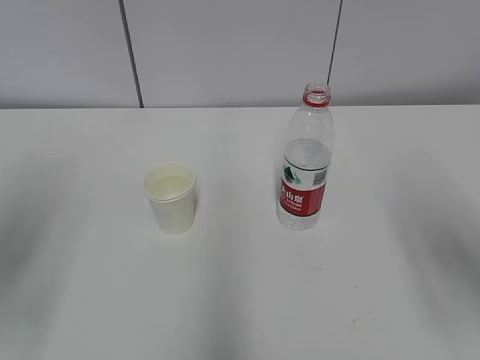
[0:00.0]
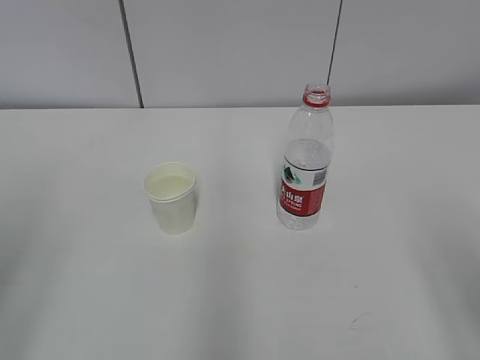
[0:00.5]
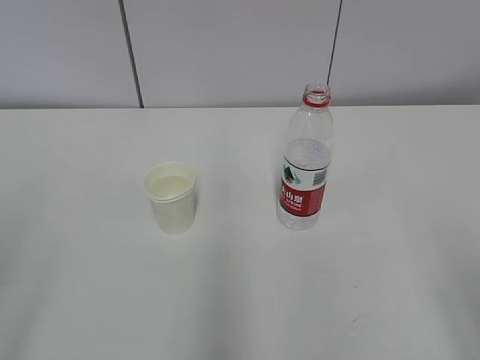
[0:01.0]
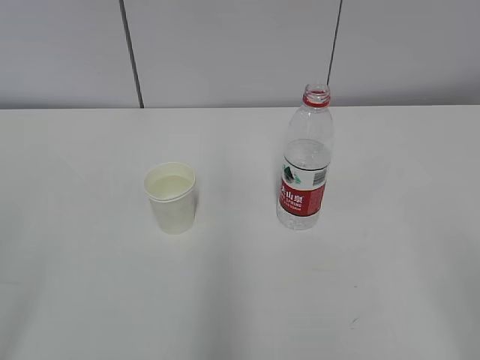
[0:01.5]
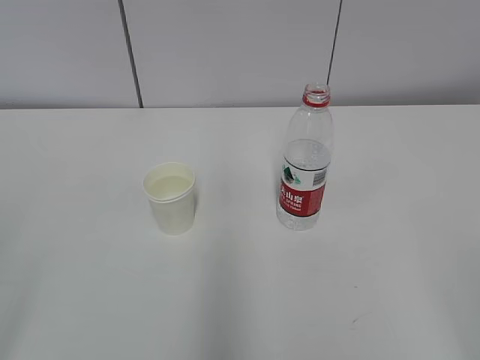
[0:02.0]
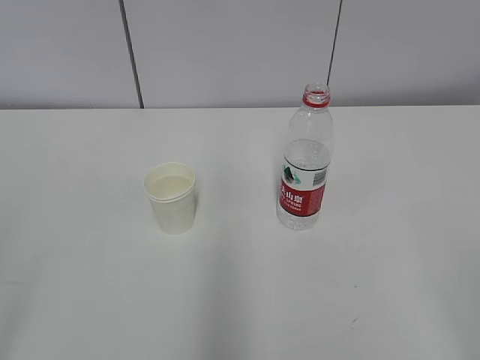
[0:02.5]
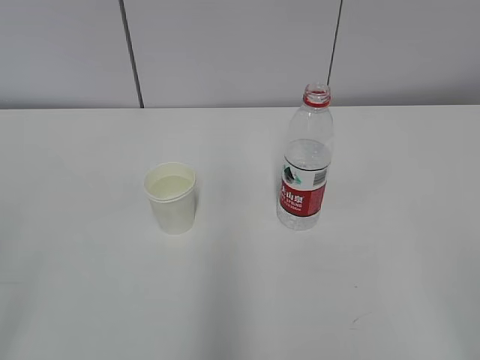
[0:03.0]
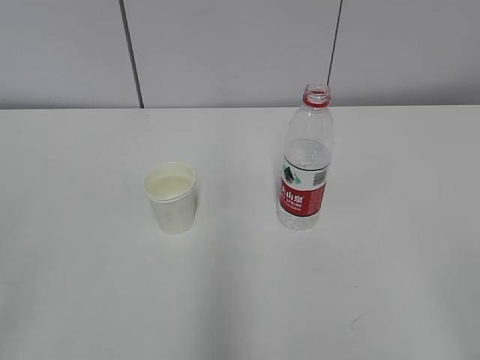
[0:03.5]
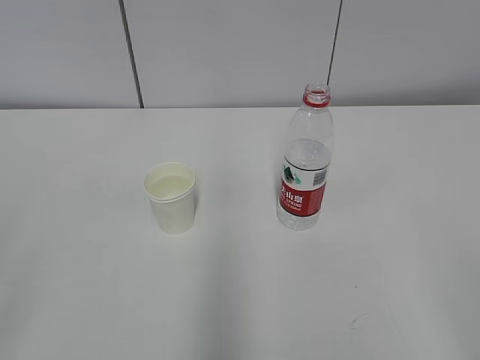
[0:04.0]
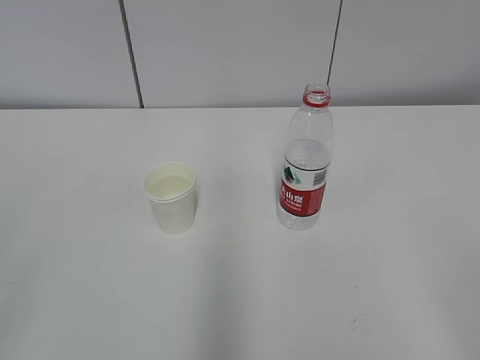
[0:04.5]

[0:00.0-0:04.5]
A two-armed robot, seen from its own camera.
0:00.0 to 0:02.0: The two grippers go roughly 20 cm backward.
0:02.0 to 0:04.5: Both grippers stay about where they are.

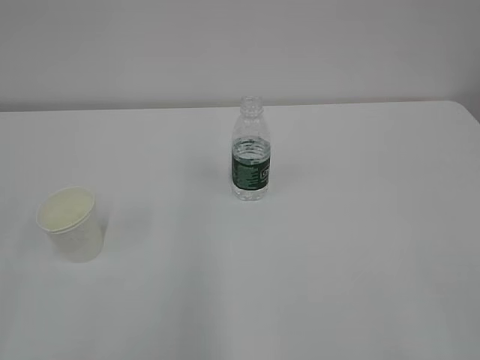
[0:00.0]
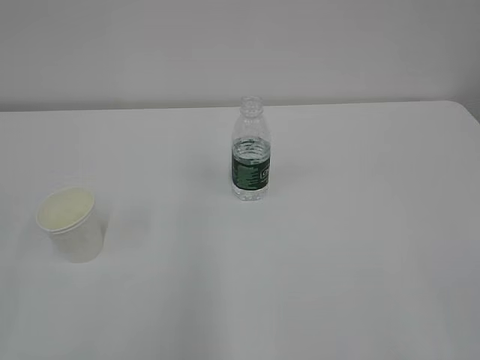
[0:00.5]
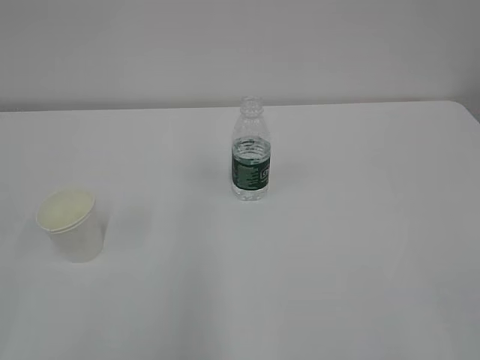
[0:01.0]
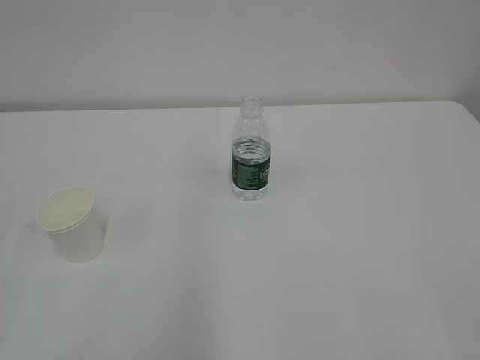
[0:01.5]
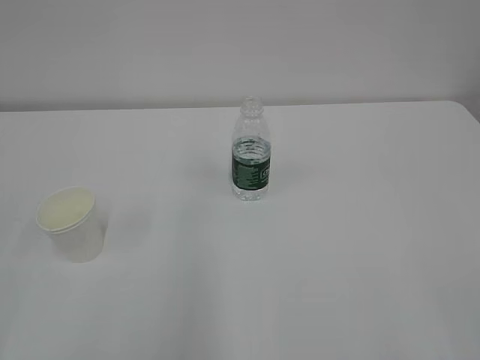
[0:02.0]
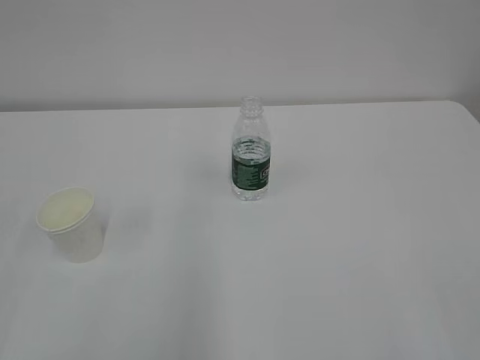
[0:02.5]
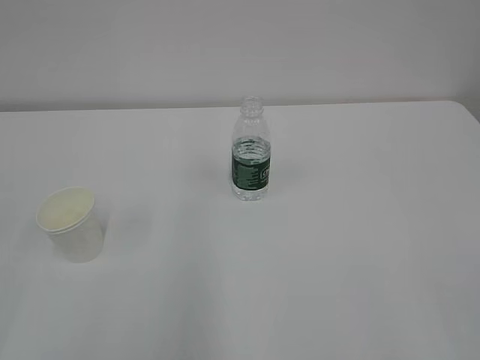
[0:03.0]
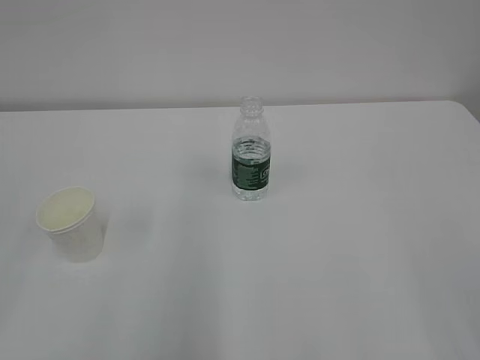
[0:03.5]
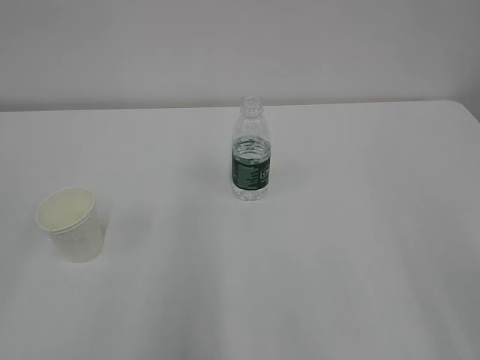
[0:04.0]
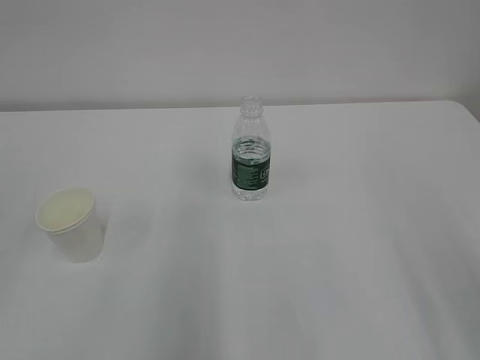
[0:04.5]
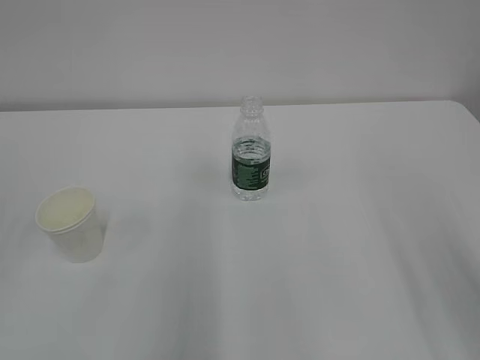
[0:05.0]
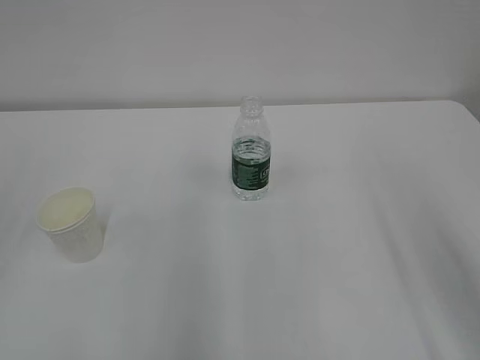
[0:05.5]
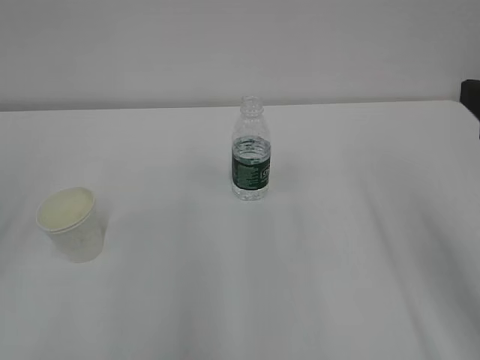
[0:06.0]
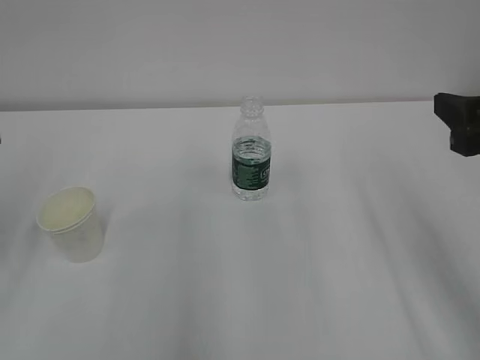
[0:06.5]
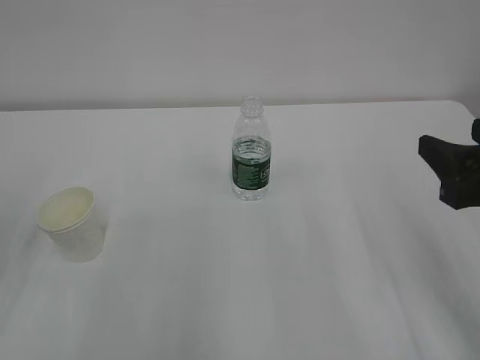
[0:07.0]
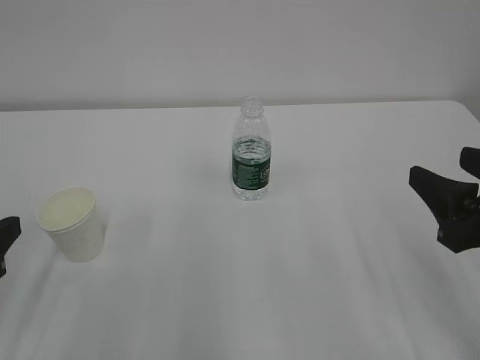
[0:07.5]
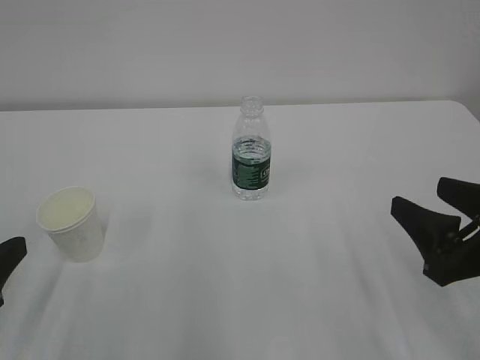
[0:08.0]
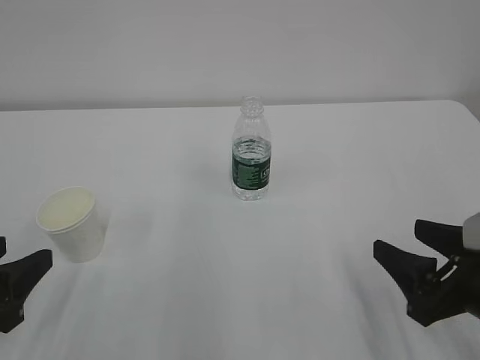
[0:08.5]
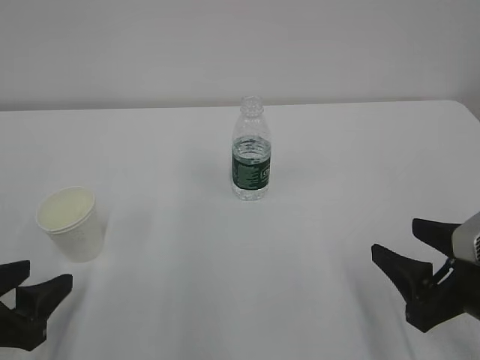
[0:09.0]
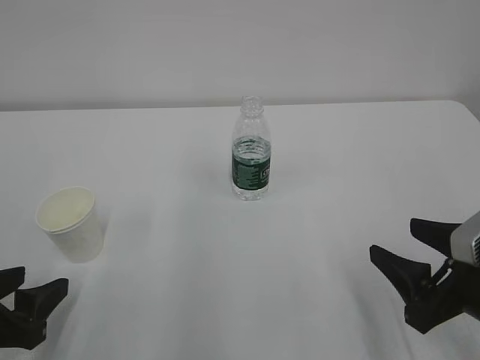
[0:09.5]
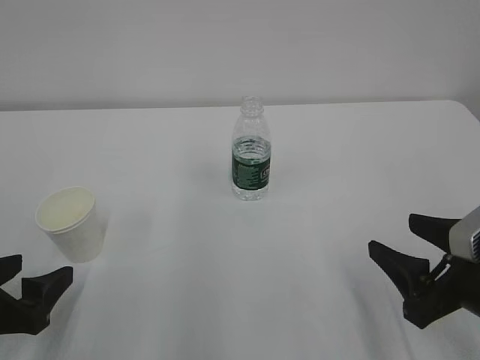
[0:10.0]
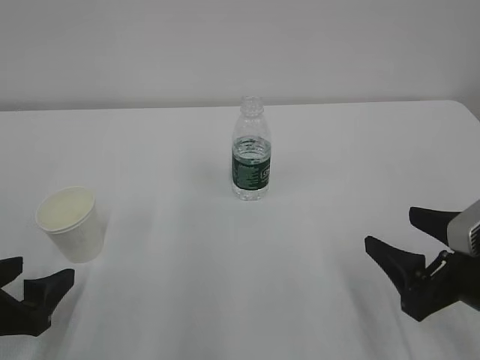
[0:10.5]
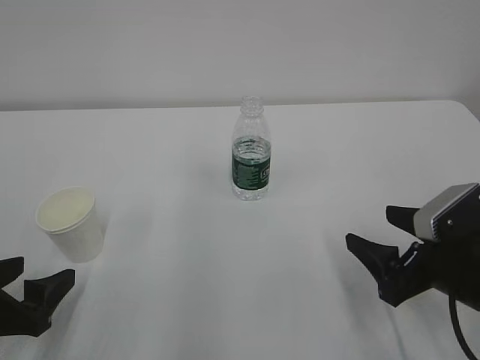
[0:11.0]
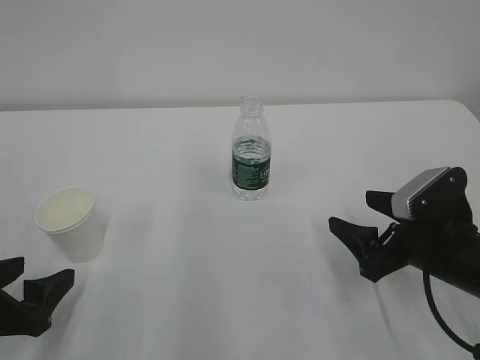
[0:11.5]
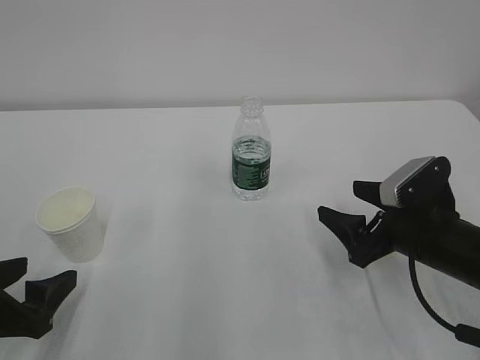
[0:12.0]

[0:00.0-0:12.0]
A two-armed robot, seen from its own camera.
0:06.0 to 0:08.0: The right gripper travels downward by approximately 10 cm. The left gripper heads downward, backward and to the right, covering some 15 cm.
0:08.0 to 0:10.0: The left gripper is displaced downward by some 5 cm, and opens.
0:10.0 to 0:12.0: The right gripper shifts some 10 cm forward.

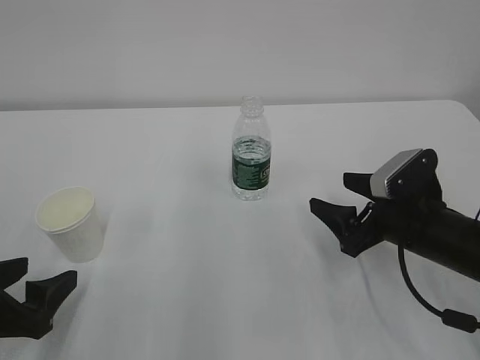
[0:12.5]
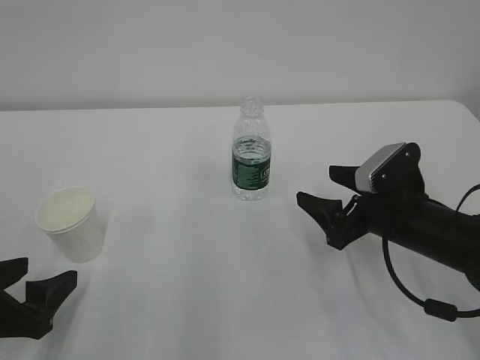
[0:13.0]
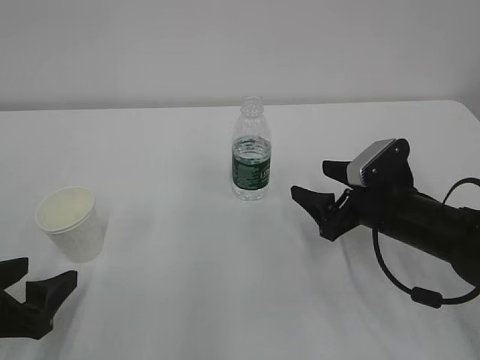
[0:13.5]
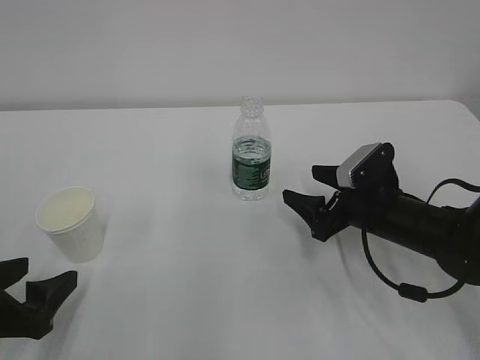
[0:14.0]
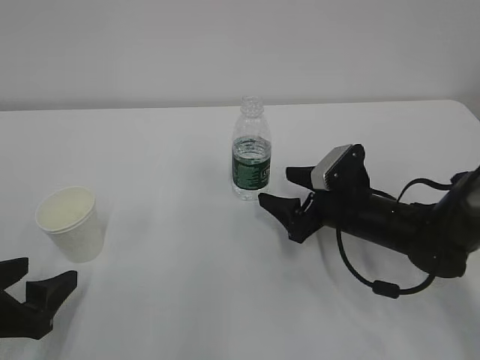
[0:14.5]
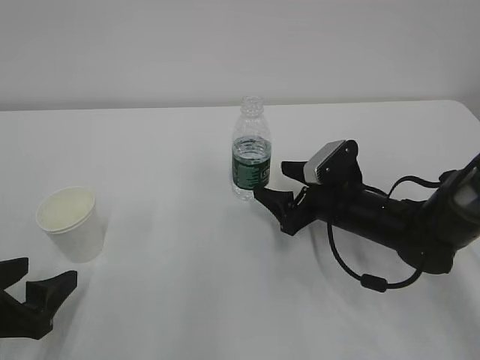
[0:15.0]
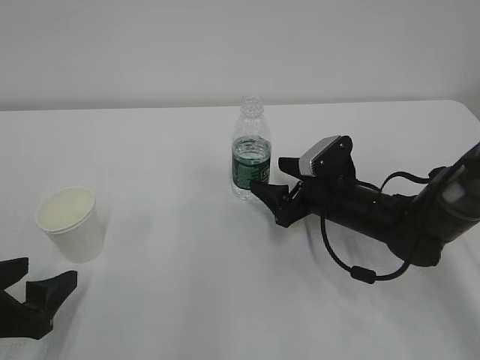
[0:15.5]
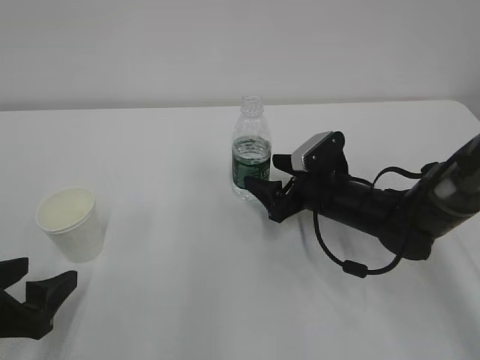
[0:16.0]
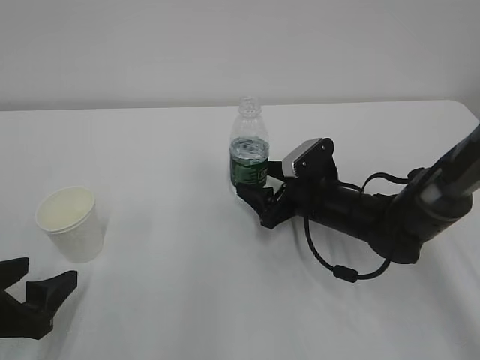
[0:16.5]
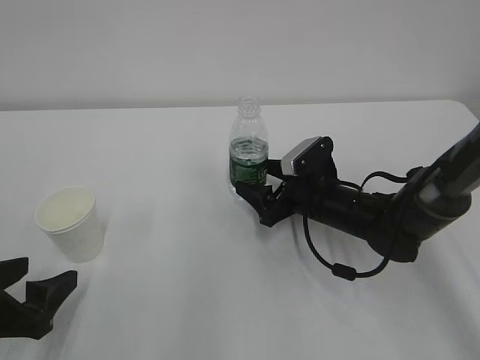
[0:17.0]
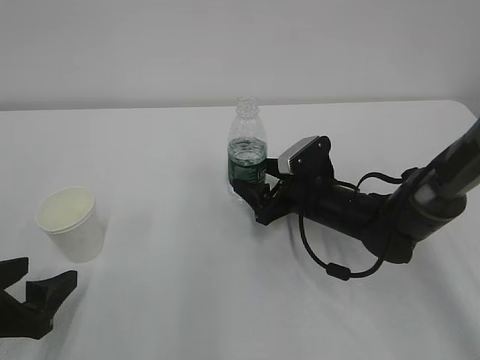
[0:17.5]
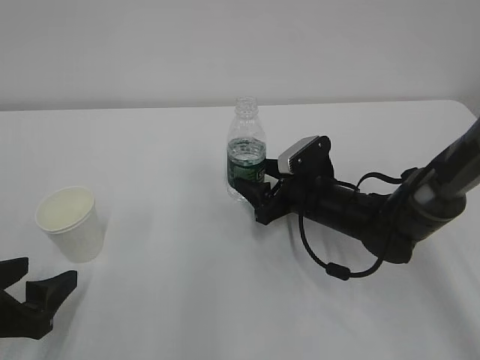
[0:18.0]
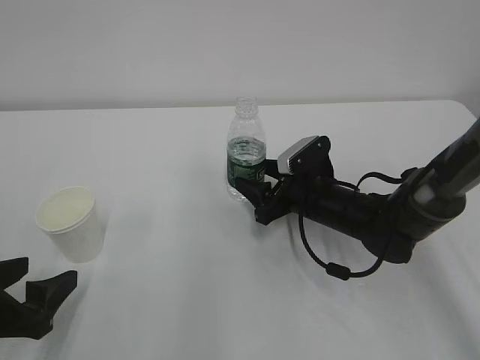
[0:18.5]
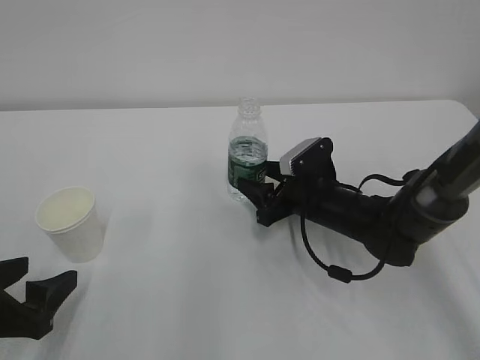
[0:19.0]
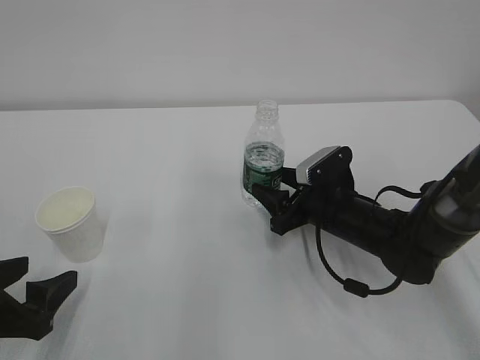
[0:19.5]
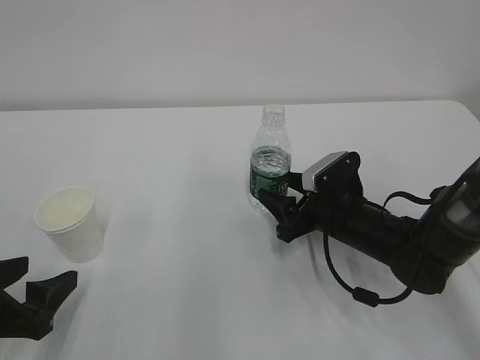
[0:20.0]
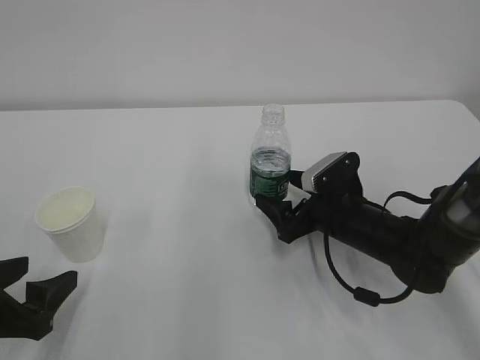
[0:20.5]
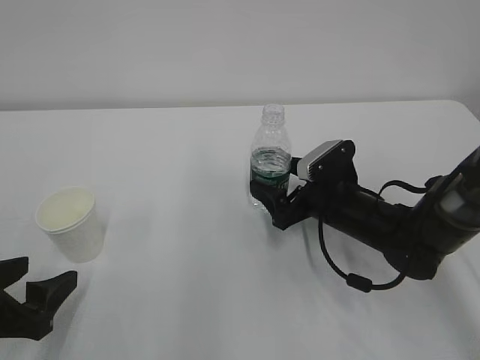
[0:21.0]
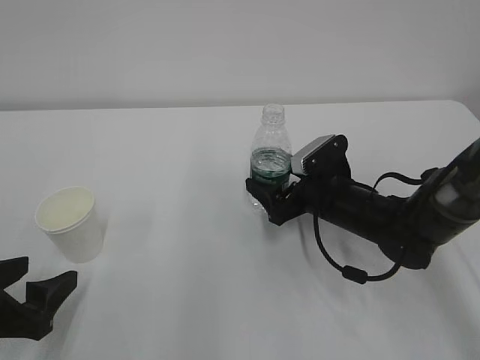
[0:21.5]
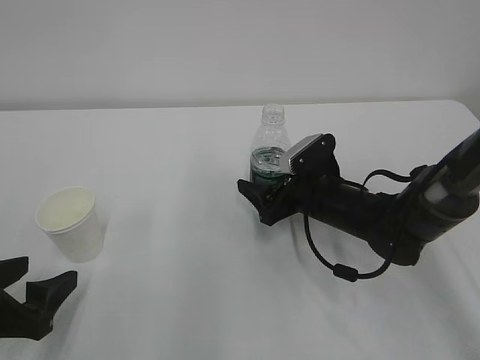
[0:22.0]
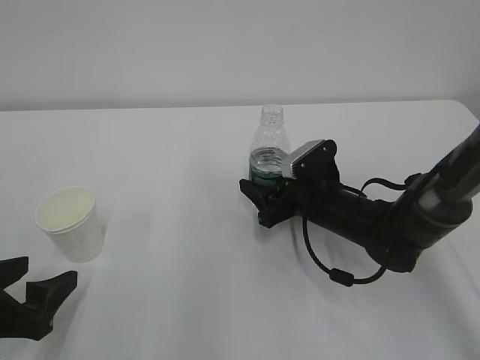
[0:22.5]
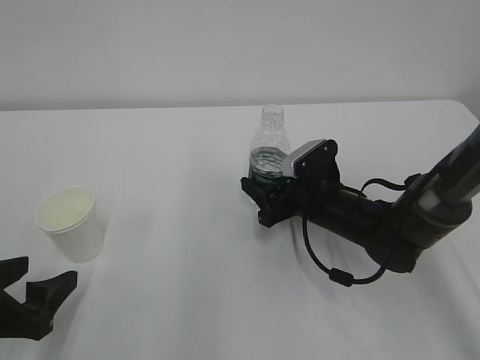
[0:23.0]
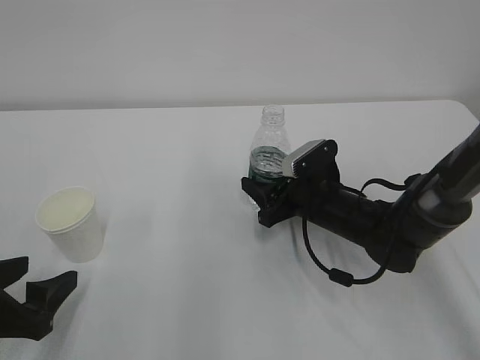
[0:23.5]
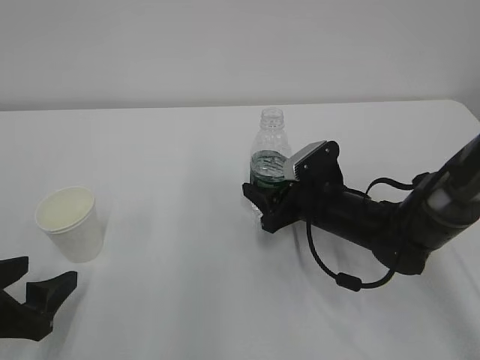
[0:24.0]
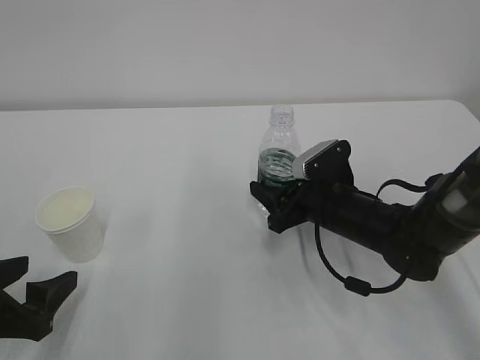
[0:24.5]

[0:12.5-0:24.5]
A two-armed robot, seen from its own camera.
0:12.5 to 0:14.5: The right gripper is displaced forward and to the left by approximately 10 cm.
0:14.5 to 0:16.5: The grippers stay close to where they were, moving slightly.
0:16.5 to 0:18.5: The right gripper closes.
0:18.5 to 0:20.5: The right gripper opens up.
0:20.5 to 0:22.5: The right gripper closes its fingers.
0:22.5 to 0:24.5: The right gripper closes up.
